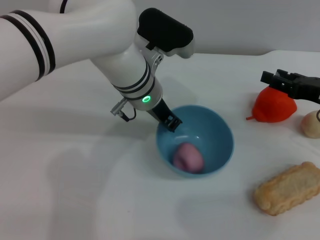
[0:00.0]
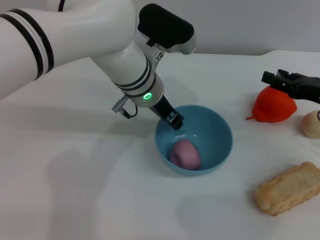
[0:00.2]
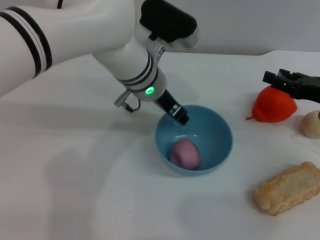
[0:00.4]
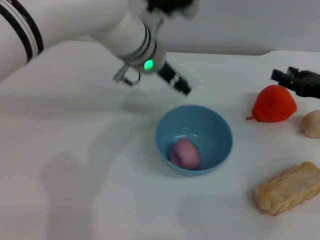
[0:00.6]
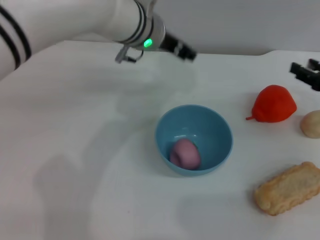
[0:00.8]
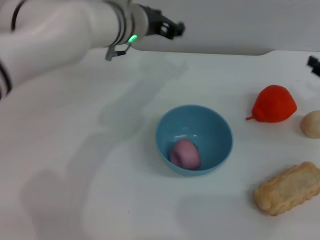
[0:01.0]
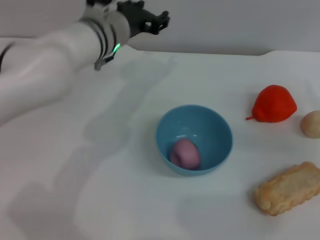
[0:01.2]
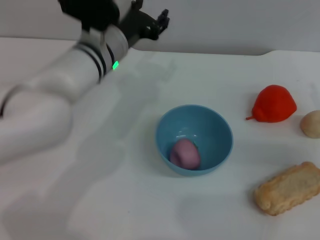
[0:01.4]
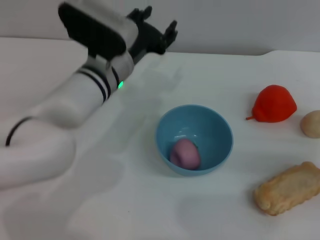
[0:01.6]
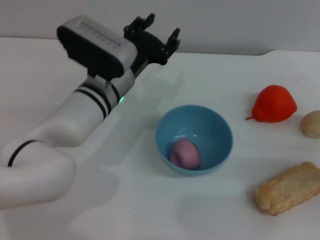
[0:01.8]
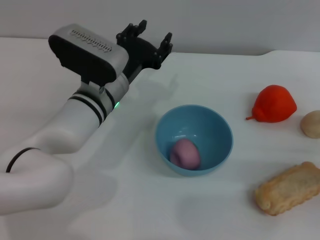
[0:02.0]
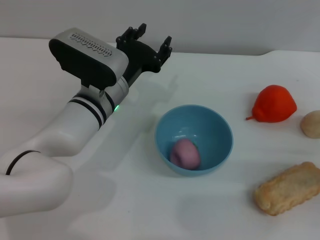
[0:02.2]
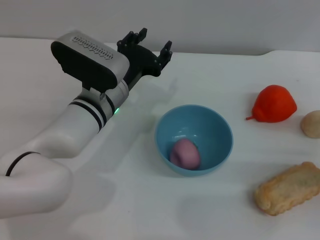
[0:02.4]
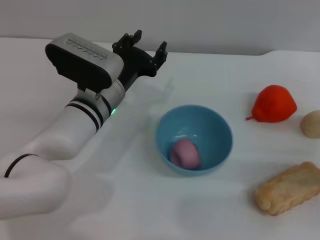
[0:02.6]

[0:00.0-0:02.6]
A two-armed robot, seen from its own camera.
Task of the whole recording: put the peach into the blue bowl and pour it out repeatedly.
0:00.0 to 0:01.2: The left gripper heads to the left, covering approximately 5 cm, and opens its fingers; the right gripper shifts roughly 5 cm to the right.
0:01.2 to 0:02.6: The right gripper moves backward, approximately 5 cm. Meanwhile the left gripper moves backward and downward, some 10 cm.
